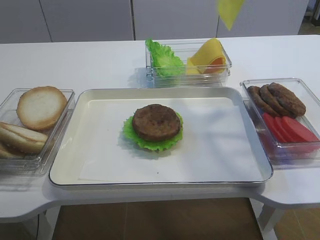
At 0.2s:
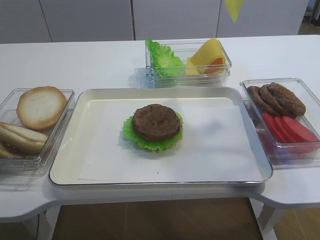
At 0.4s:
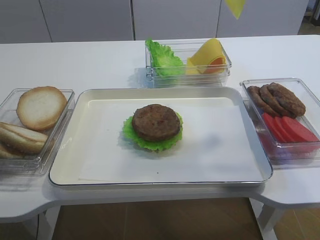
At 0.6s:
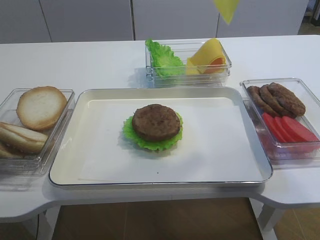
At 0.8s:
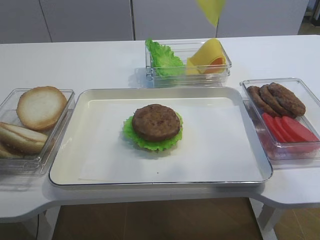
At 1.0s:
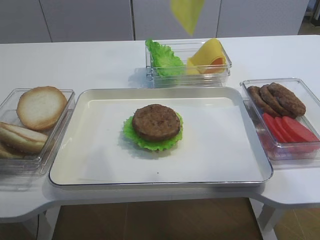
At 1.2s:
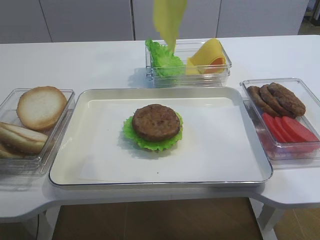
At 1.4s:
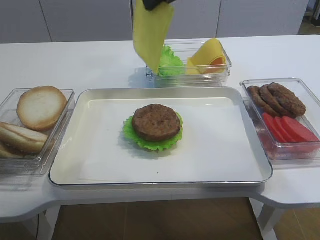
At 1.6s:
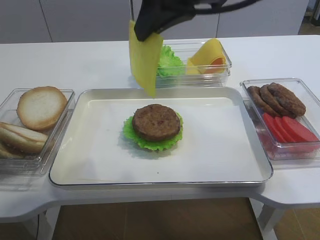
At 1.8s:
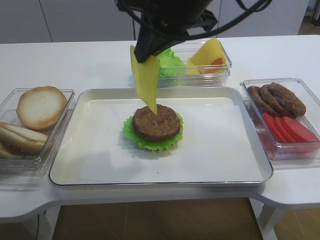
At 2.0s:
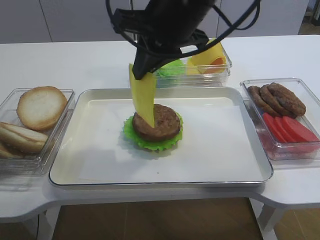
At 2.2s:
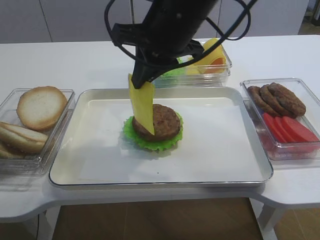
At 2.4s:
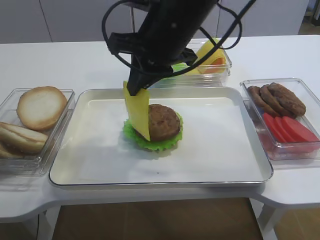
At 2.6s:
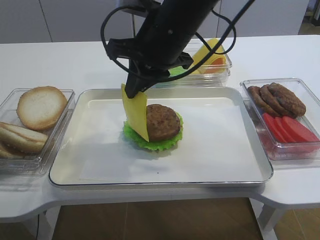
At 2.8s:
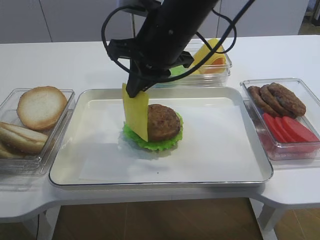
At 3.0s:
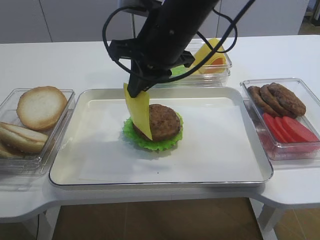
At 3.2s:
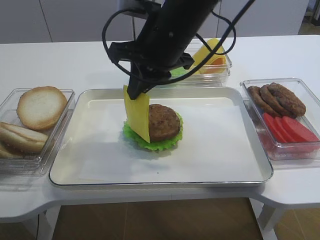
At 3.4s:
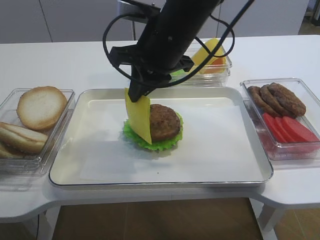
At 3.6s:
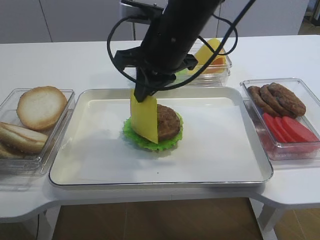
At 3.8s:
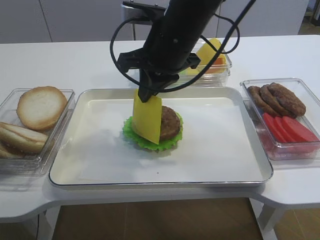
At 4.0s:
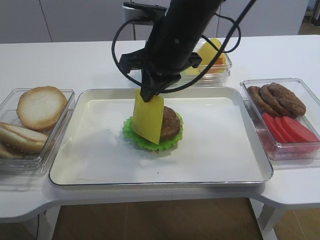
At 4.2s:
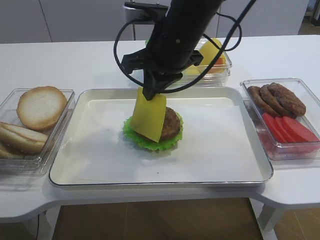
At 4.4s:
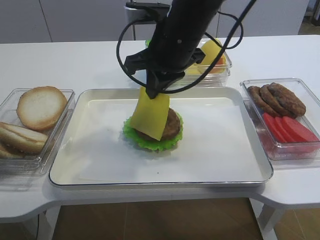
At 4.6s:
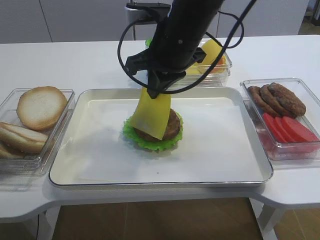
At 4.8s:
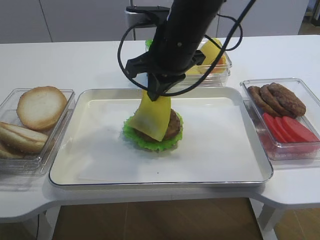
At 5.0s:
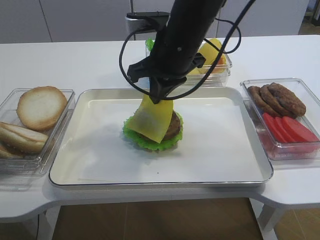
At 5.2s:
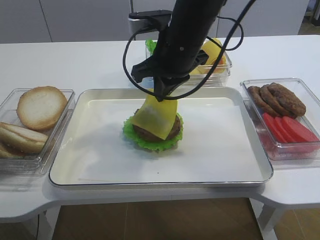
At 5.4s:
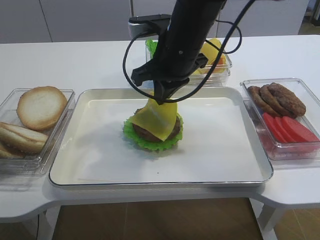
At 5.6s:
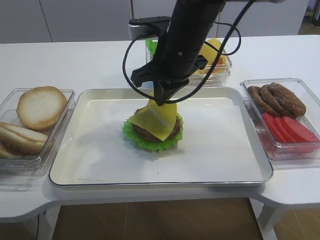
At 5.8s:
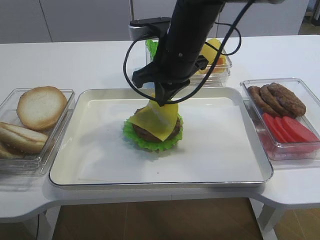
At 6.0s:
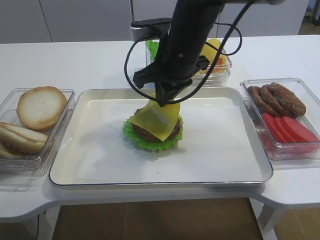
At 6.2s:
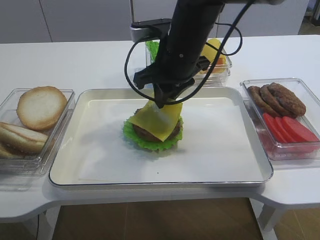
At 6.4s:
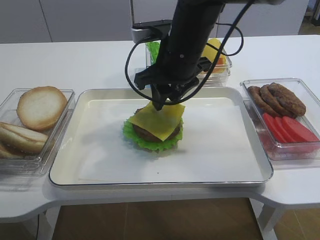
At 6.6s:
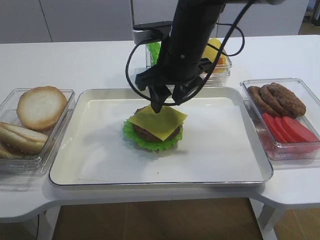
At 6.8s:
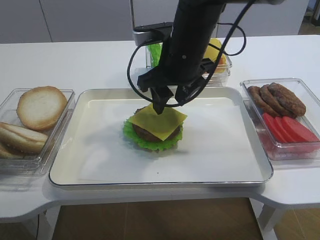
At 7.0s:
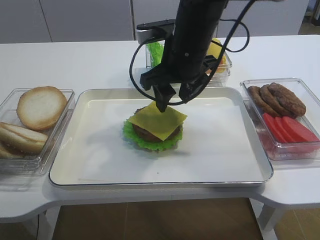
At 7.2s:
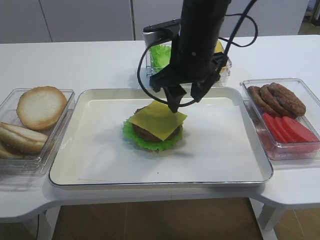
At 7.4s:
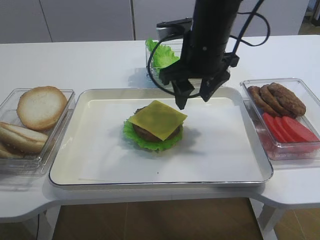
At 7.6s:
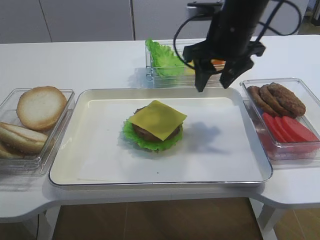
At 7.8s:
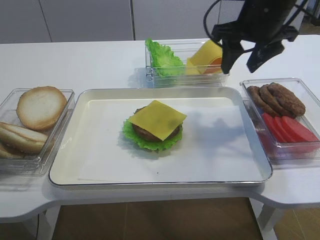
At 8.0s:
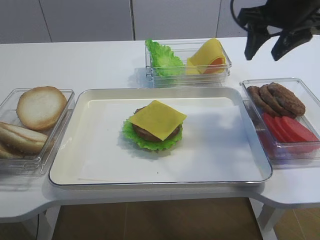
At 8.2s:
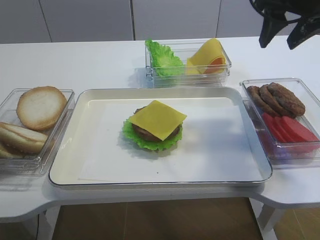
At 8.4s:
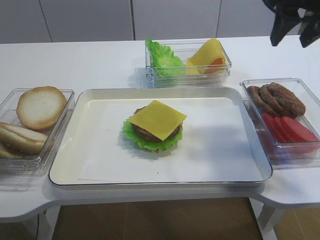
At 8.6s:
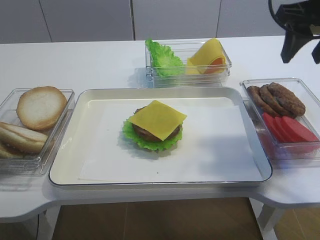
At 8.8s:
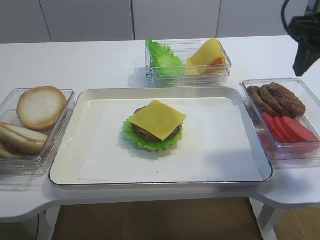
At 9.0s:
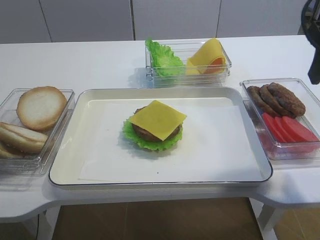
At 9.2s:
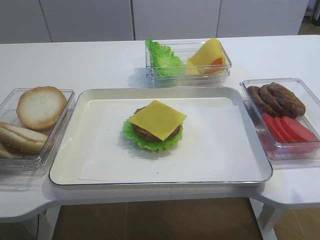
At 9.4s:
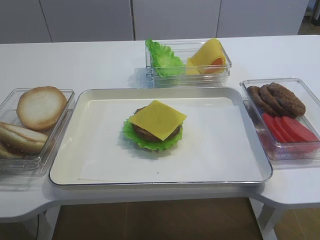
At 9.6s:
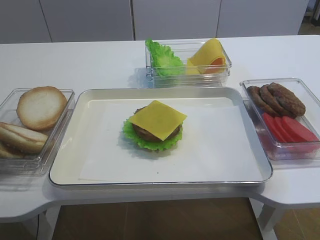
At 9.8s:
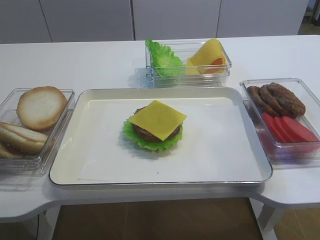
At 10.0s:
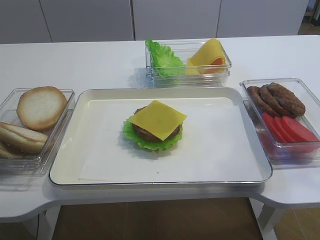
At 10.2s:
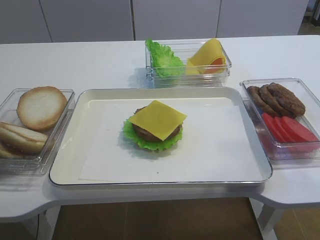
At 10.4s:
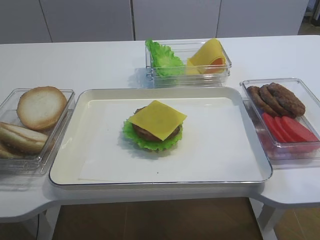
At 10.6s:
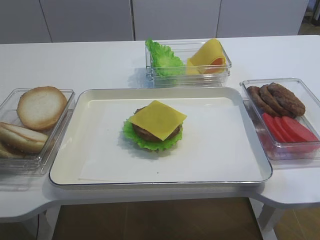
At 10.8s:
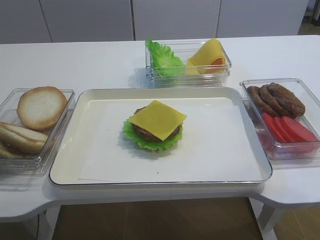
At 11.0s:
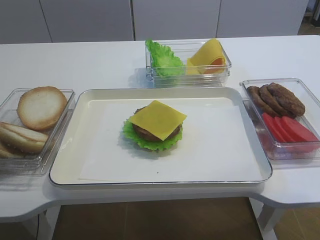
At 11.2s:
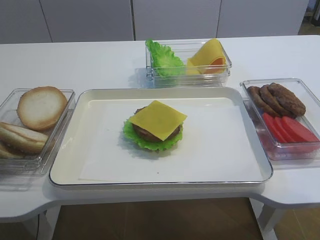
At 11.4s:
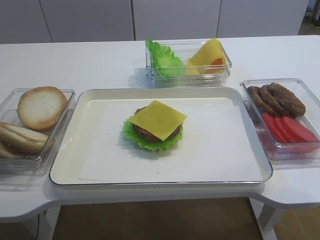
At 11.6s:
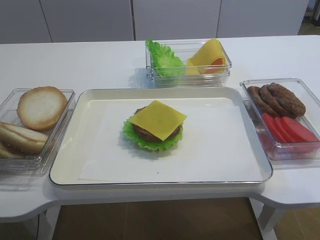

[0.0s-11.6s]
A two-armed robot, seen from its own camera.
Step, 0.0s to 7.0s: Place the cheese slice on the cutlet with the right gripper.
0.0s to 1.4s: The right gripper goes about 20 cm backward and to the left.
1.4s to 2.8s: The right gripper heads downward, to the left and forward, covering some 15 cm.
2.8s to 5.8s: The grippers make only small movements.
5.8s to 7.2s: The right gripper opens its fingers.
7.2s to 8.8s: The right gripper goes some 20 cm to the right.
8.8s to 10.2s: The right gripper goes about 25 cm backward.
